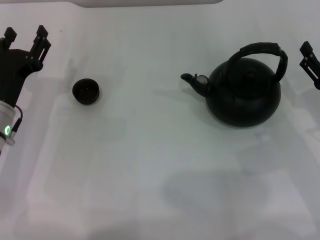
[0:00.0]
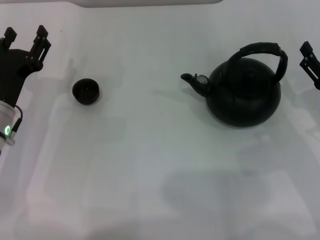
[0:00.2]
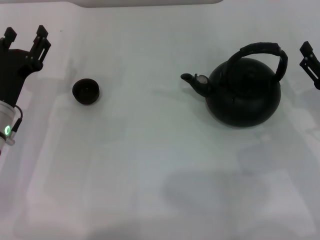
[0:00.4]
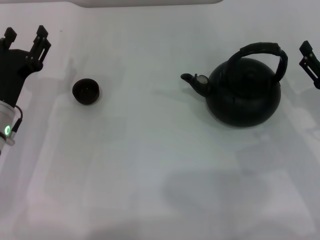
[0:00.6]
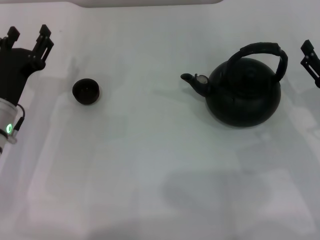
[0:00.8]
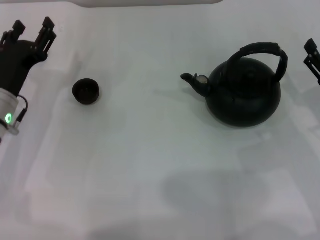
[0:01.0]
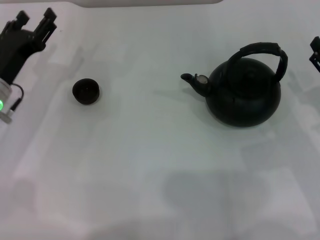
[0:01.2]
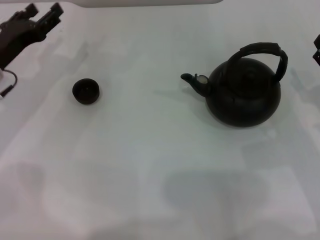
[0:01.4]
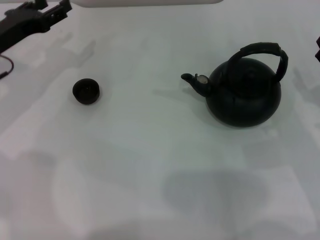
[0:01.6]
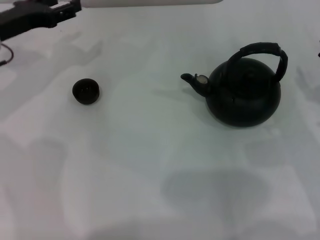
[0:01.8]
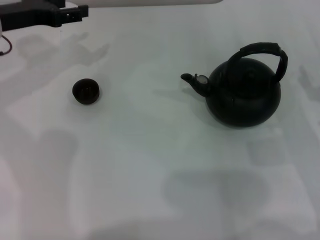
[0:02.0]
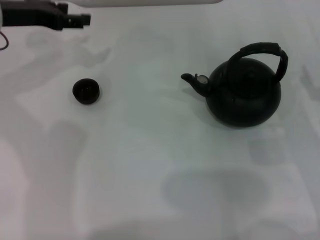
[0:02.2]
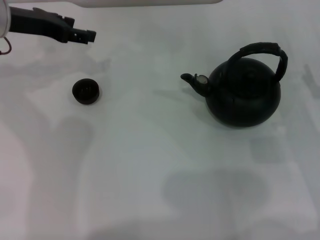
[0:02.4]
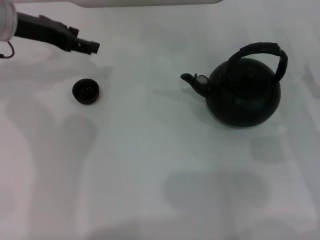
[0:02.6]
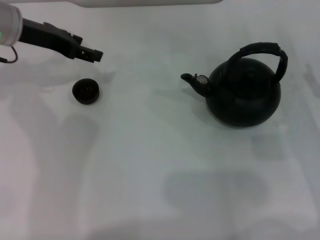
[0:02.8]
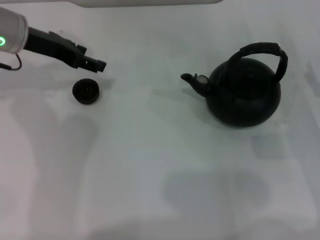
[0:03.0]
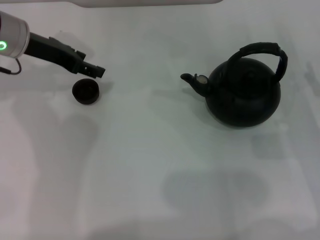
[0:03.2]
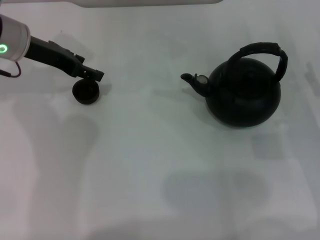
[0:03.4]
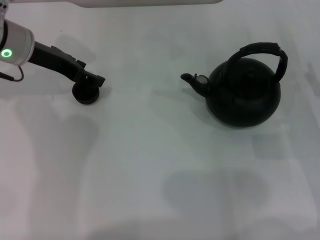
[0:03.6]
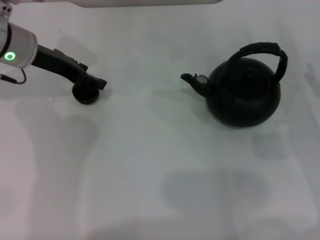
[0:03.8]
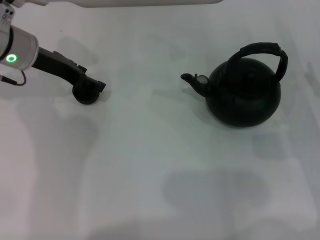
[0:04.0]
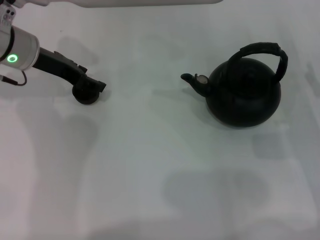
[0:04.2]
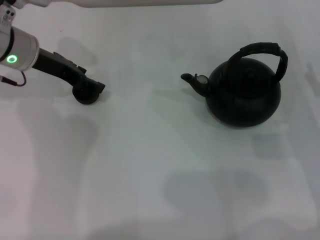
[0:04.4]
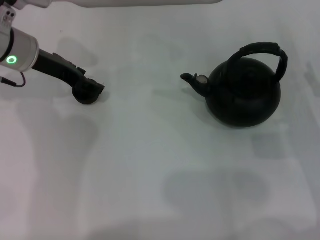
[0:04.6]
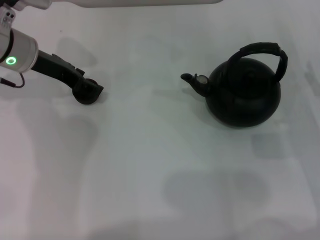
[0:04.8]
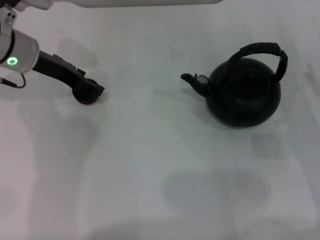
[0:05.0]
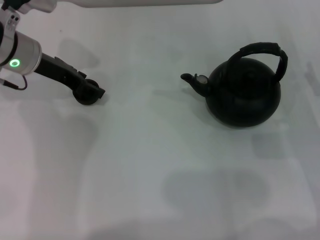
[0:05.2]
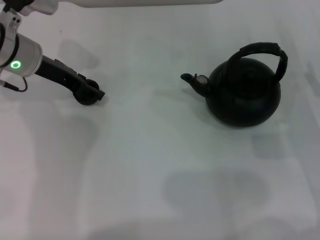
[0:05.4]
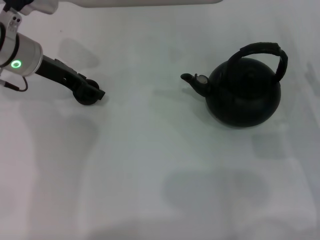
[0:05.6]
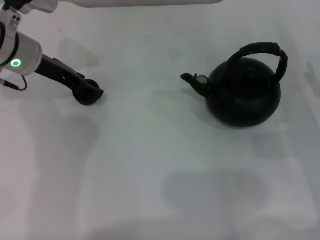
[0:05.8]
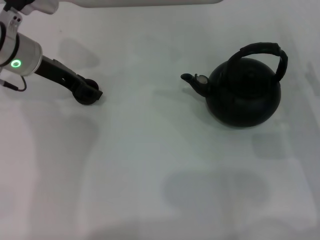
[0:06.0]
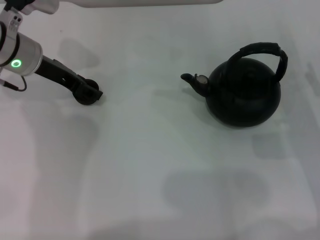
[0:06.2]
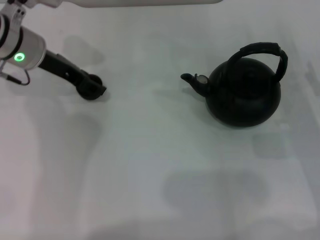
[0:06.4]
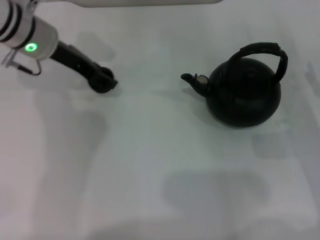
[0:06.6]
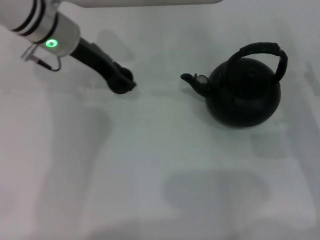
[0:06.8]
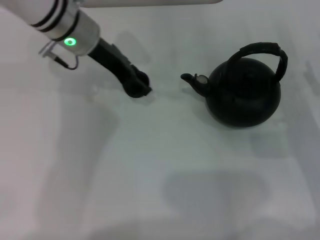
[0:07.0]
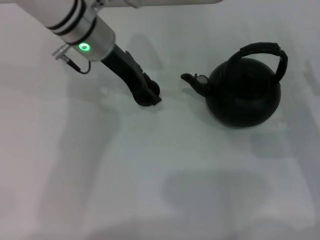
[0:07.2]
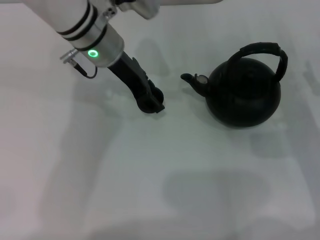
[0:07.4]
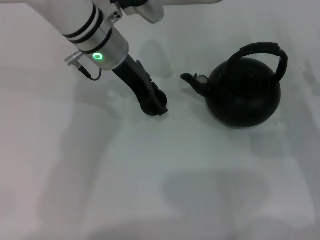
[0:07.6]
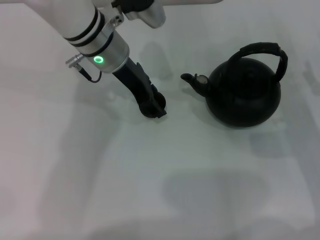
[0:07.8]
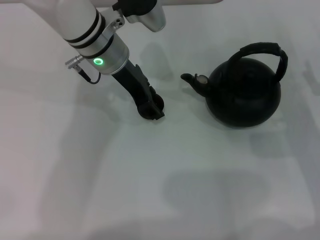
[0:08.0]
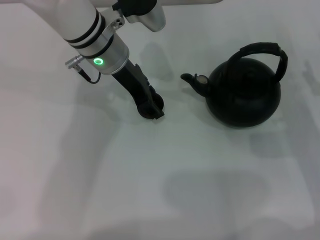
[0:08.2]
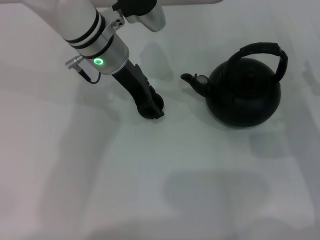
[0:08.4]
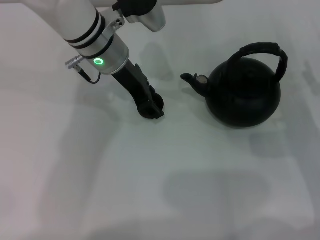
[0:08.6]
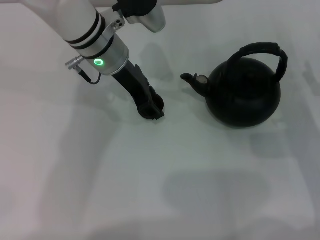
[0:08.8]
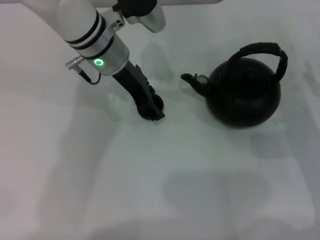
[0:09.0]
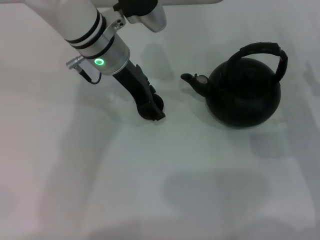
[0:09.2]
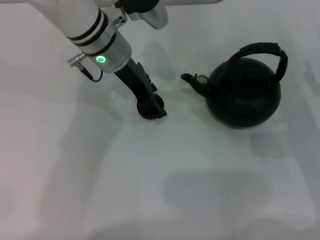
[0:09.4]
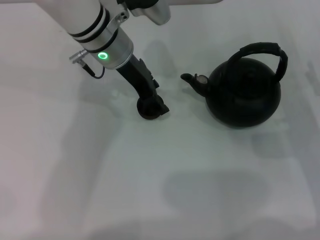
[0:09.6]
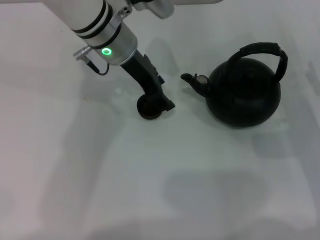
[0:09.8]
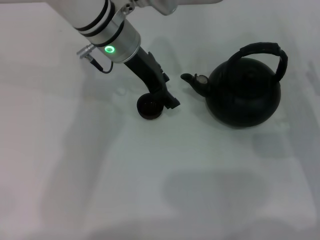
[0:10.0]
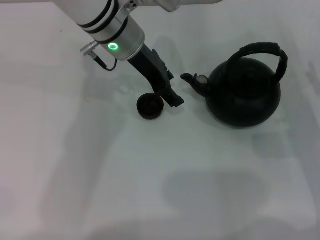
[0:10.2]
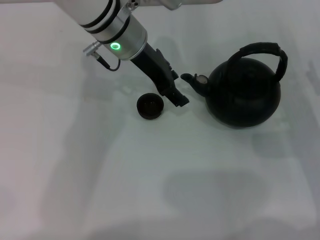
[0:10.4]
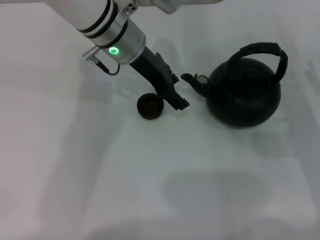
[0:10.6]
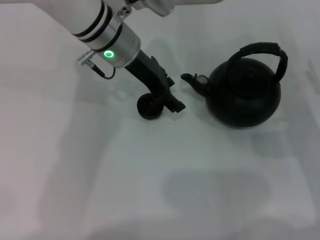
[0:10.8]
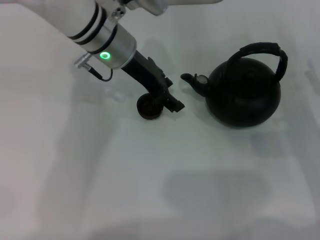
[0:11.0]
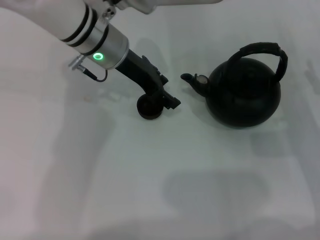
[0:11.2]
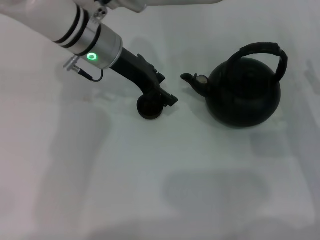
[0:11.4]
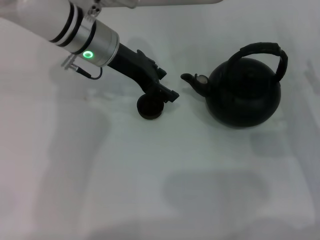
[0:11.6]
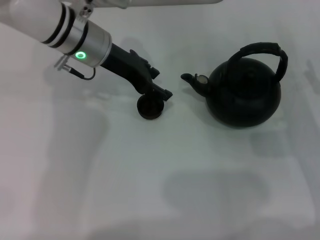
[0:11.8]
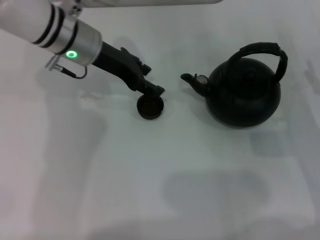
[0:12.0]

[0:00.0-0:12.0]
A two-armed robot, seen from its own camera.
Task of the whole recording: Grasp the handle of the teapot with one hand and pour tea into the teacup.
Step, 0:00.0 to 0:06.4: Pick up the teacup with the left gripper.
0:00.0 to 0:01.6: The left gripper heads forward and upward, covering about 10 cm.
0:01.6 to 0:03.0: The left gripper shifts some 5 cm upward.
0:03.0 to 0:04.4: The grippers move only a little.
0:04.4 to 0:06.0: Both grippers stay about where they are.
0:06.0 to 0:07.6: The left gripper goes roughly 15 cm to the right.
0:07.6 to 0:09.0: Neither gripper changes place.
0:09.0 to 0:10.4: The grippers make only small movements.
0:10.4 to 0:12.0: The left gripper travels to the left by approximately 5 cm.

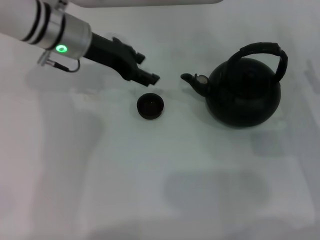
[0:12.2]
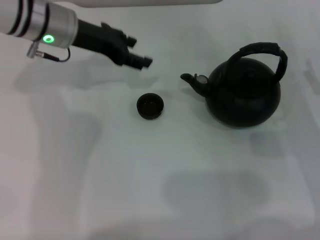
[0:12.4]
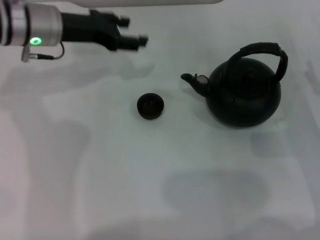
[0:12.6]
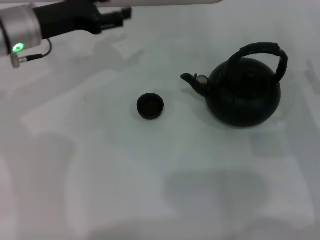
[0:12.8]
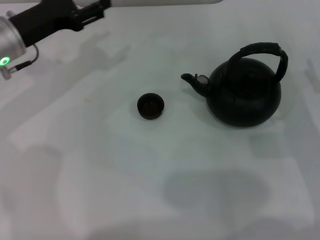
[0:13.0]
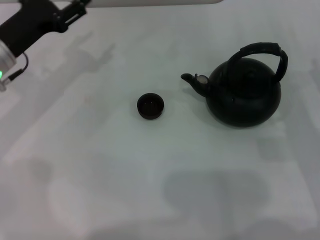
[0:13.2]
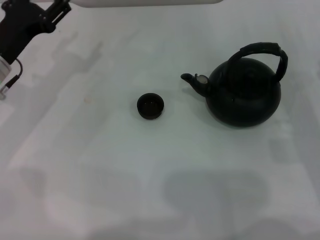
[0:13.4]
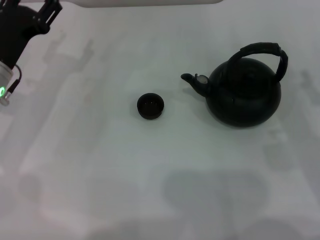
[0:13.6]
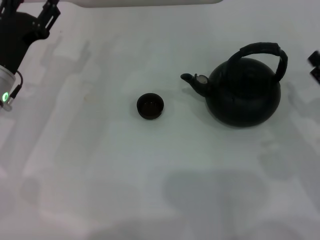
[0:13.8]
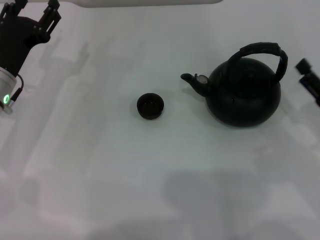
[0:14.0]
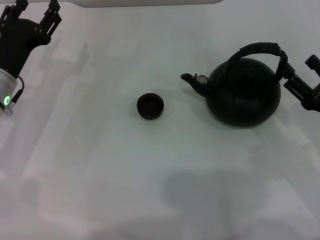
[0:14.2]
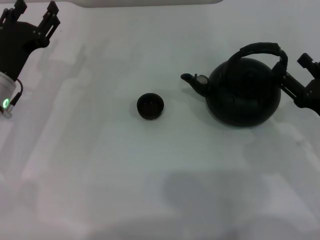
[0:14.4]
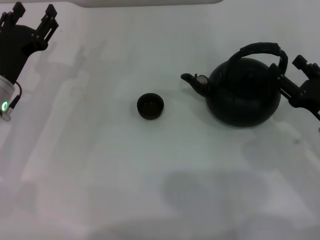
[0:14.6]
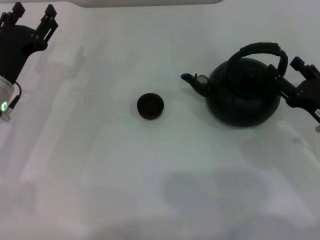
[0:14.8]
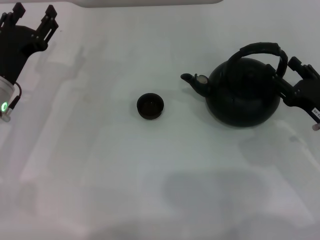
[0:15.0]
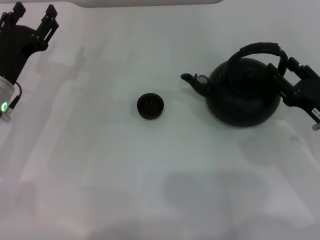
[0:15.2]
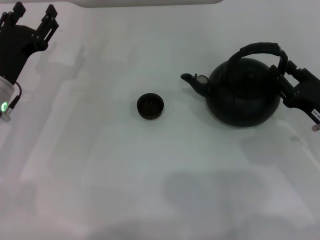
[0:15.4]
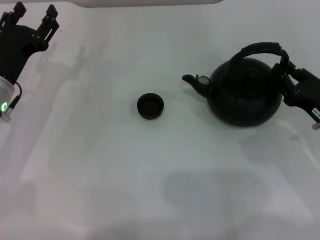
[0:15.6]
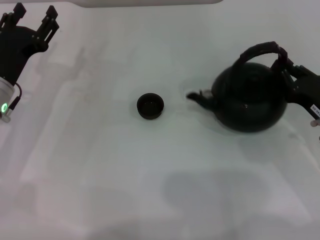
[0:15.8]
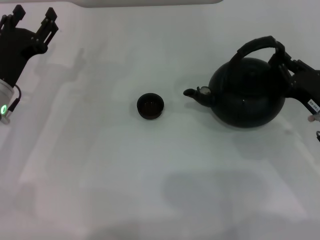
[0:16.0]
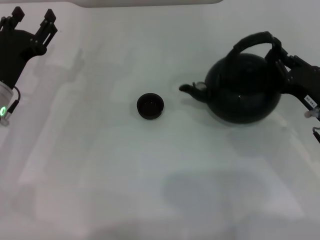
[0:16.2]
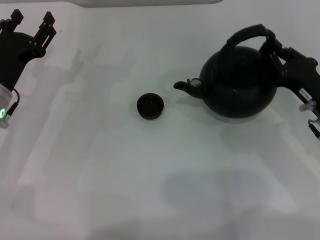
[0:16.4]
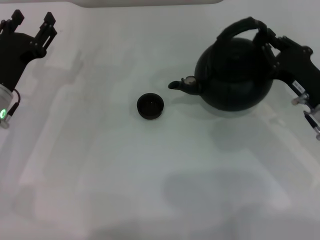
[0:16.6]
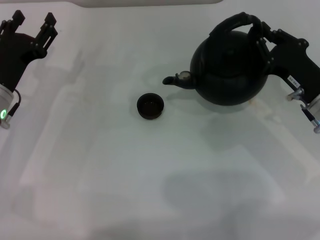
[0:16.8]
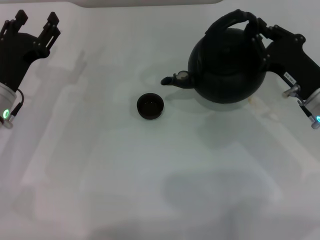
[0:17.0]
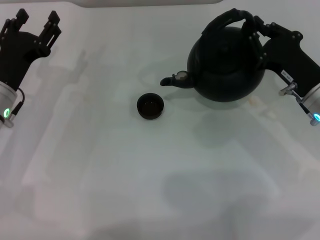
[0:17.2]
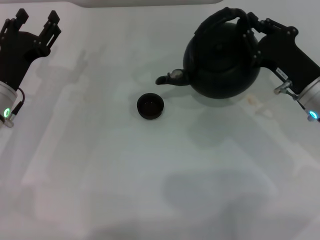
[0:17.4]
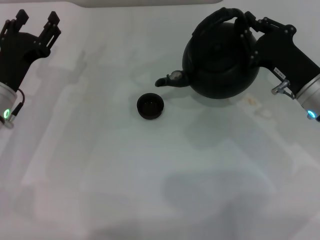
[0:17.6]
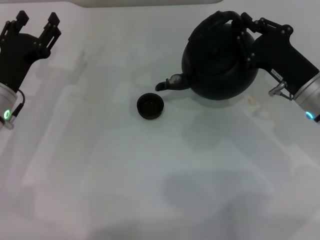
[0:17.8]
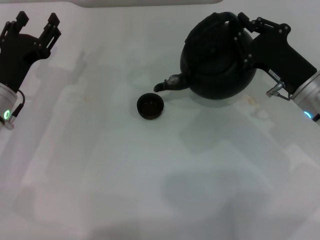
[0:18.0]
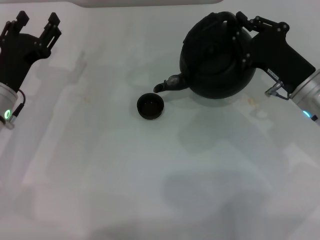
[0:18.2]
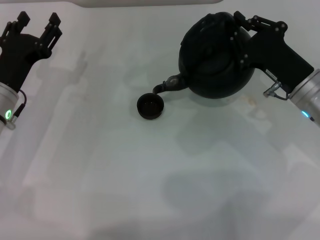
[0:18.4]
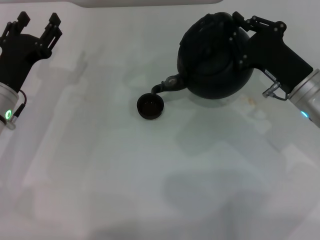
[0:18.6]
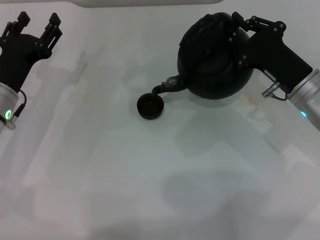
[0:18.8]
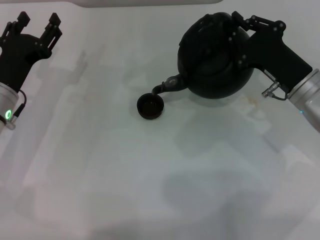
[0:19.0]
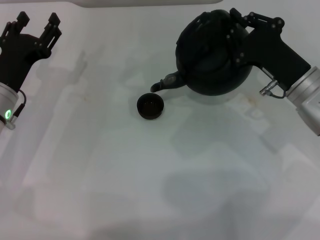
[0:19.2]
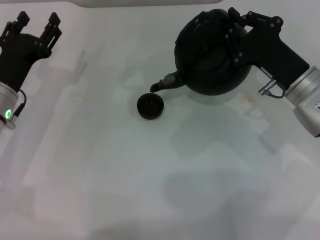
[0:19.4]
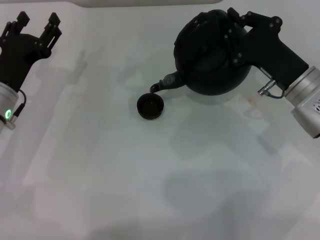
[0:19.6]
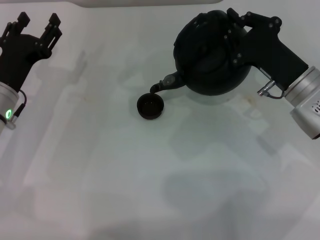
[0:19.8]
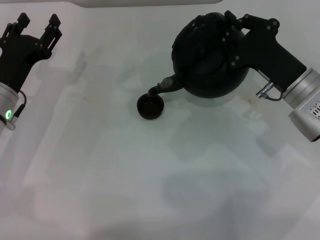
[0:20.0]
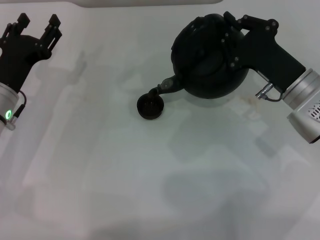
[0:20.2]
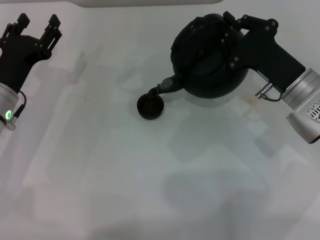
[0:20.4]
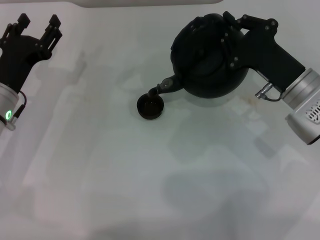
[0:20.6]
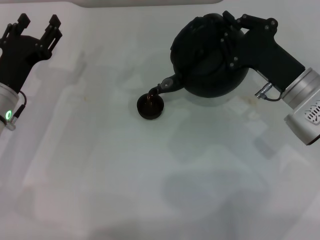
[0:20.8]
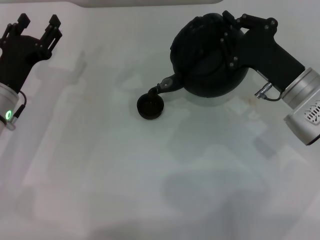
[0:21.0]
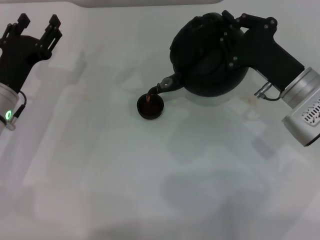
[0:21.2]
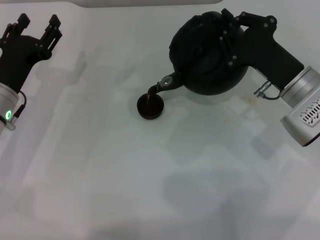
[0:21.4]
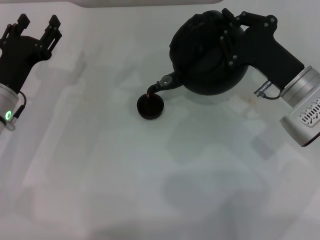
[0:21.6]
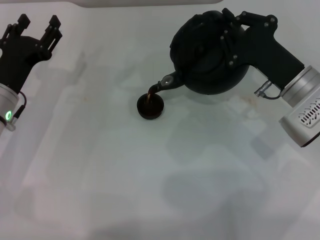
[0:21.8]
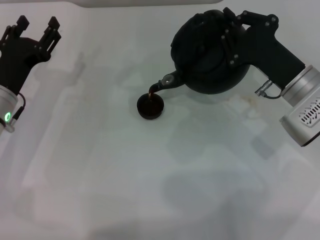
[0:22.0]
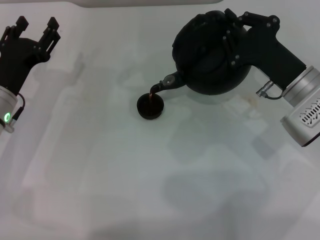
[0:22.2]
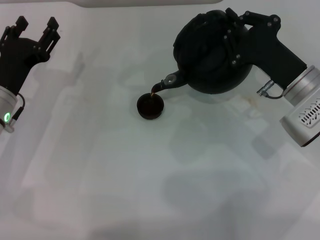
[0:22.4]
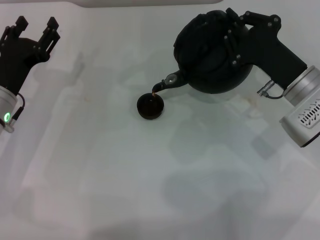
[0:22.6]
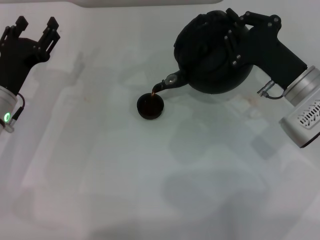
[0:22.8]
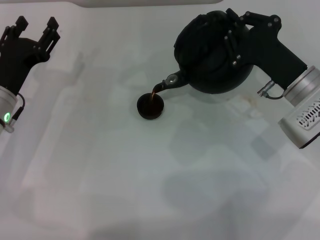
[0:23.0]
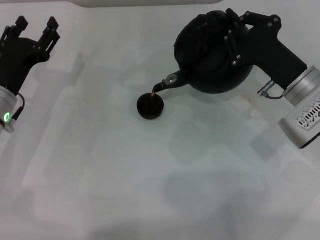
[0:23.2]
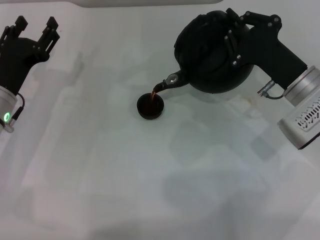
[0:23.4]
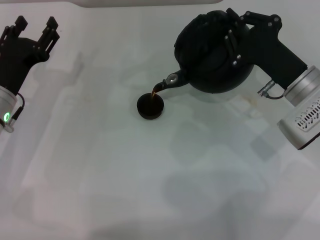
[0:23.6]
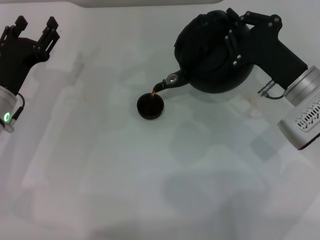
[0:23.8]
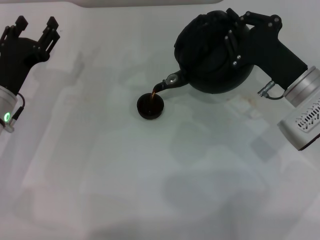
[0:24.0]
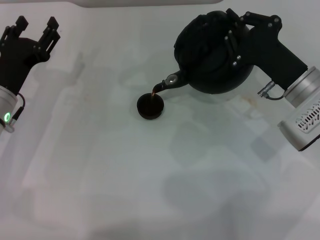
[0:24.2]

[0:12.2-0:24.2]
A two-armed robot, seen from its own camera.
Task of the whole recording: Grasp the handle of the teapot with one hand and pour tea into the teacup.
Step, 0:12.2 to 0:16.8: Pick up the teapot with the right gripper.
0:12.2 to 0:13.8: The left gripper moves backward, to the left and downward, about 15 cm.
0:13.8 to 0:15.2: The grippers stay close to where they were, moving slightly.
0:15.2 to 0:16.6: The right gripper changes place by some 5 cm, and closes up.
0:18.2 to 0:21.2: The grippers stay close to where they were, moving slightly.
0:21.2 to 0:22.6: Neither gripper changes place.
0:22.6 to 0:24.2: The two grippers keep their place.
